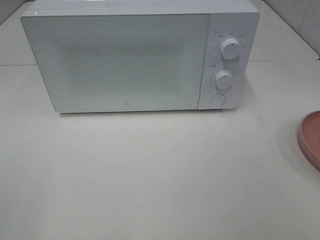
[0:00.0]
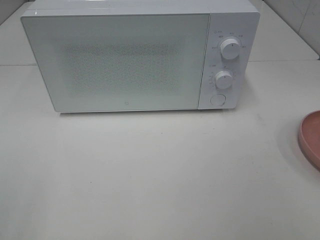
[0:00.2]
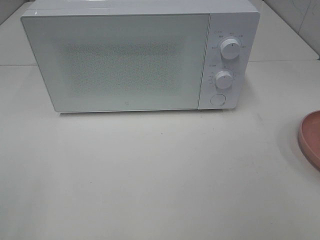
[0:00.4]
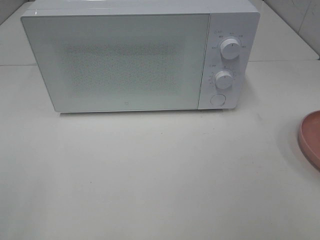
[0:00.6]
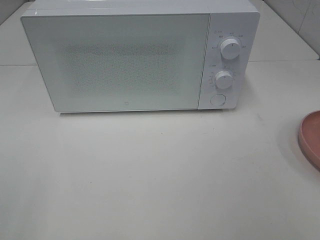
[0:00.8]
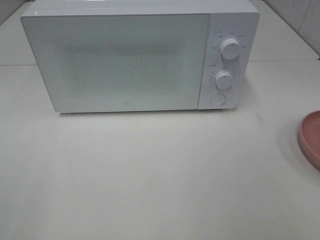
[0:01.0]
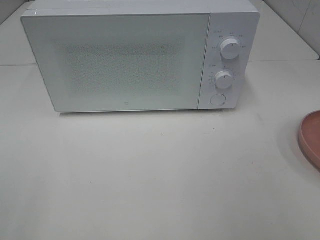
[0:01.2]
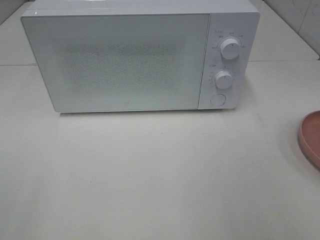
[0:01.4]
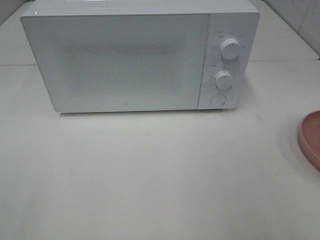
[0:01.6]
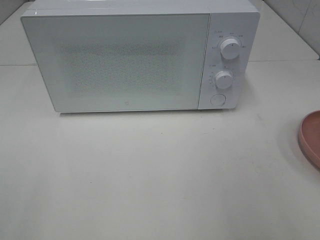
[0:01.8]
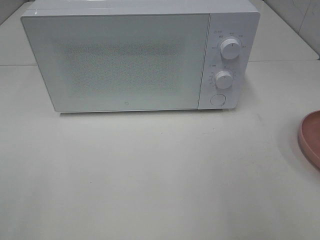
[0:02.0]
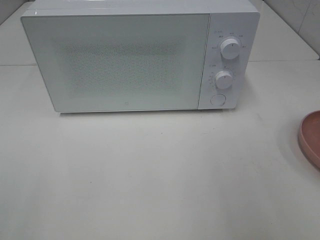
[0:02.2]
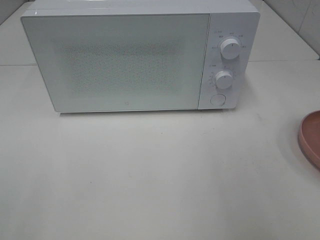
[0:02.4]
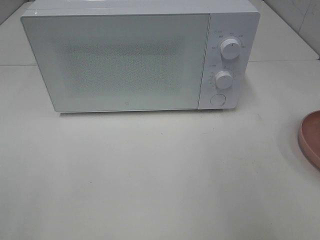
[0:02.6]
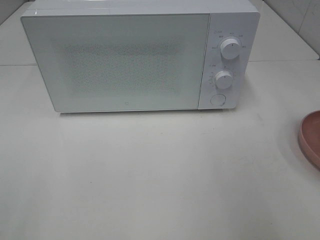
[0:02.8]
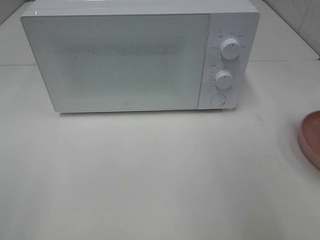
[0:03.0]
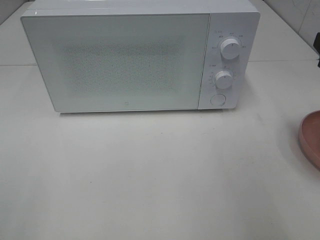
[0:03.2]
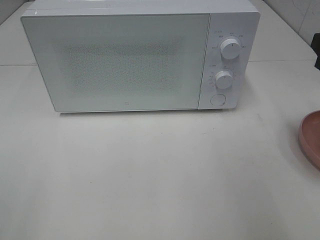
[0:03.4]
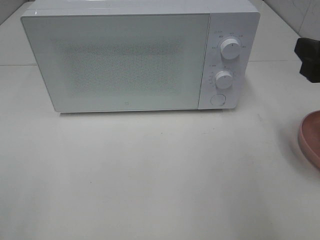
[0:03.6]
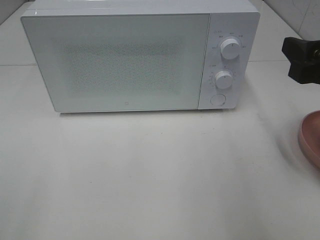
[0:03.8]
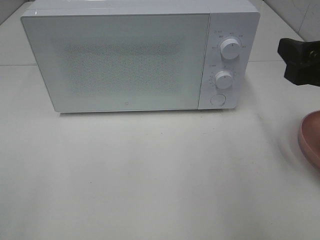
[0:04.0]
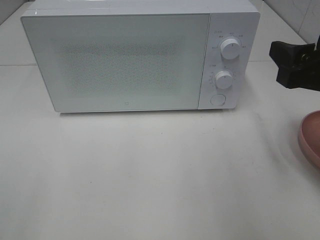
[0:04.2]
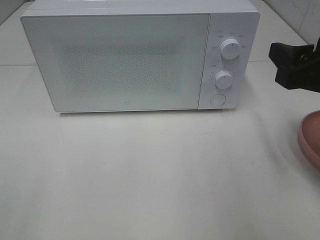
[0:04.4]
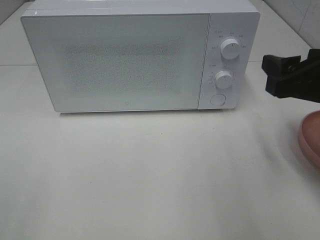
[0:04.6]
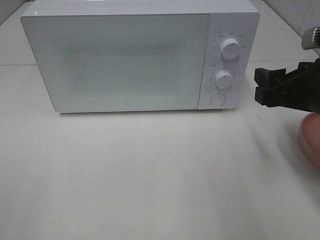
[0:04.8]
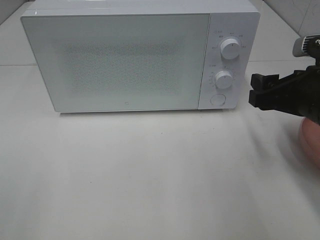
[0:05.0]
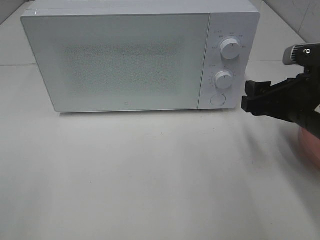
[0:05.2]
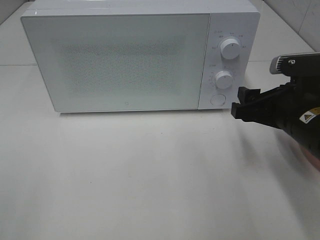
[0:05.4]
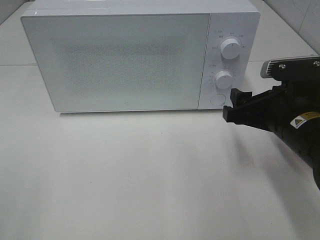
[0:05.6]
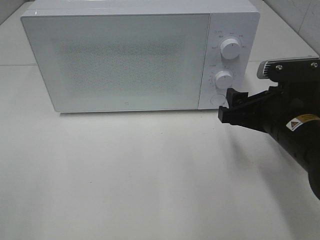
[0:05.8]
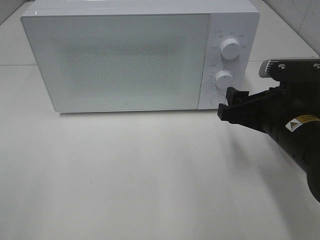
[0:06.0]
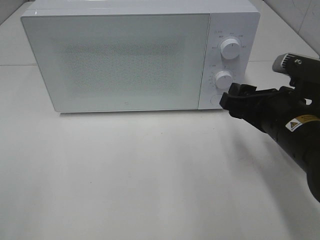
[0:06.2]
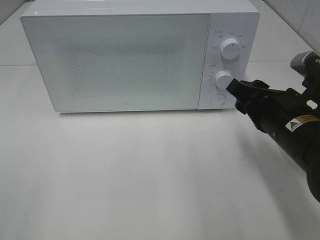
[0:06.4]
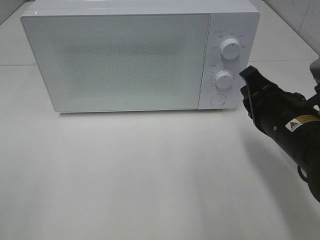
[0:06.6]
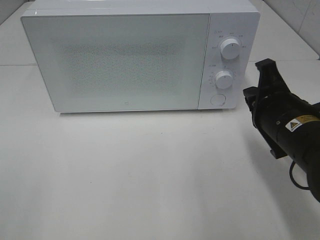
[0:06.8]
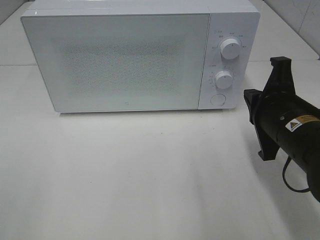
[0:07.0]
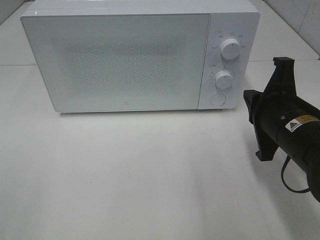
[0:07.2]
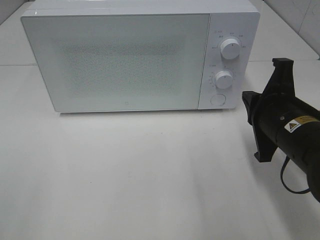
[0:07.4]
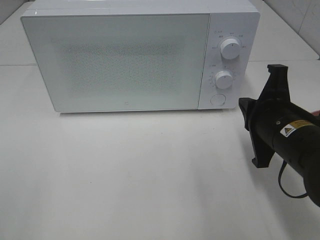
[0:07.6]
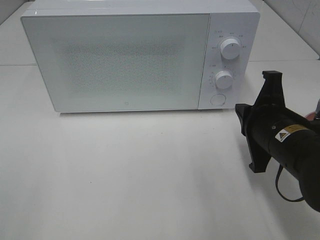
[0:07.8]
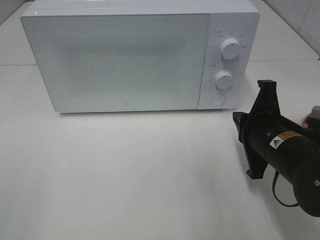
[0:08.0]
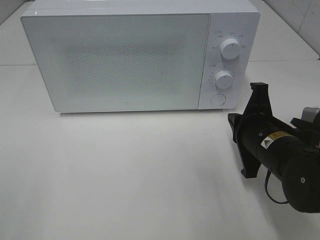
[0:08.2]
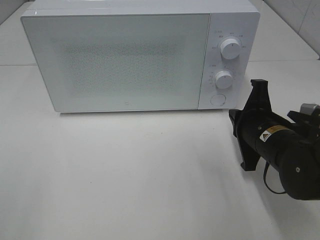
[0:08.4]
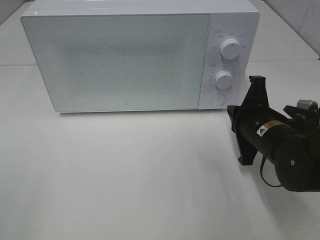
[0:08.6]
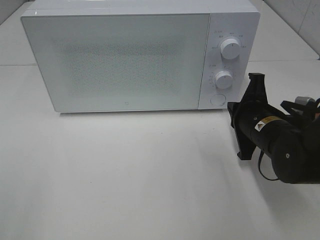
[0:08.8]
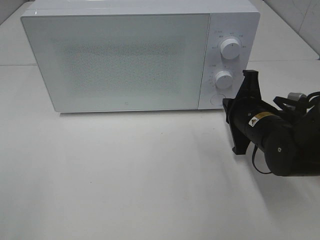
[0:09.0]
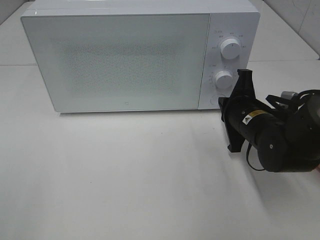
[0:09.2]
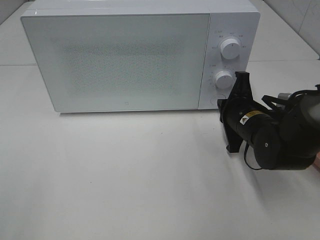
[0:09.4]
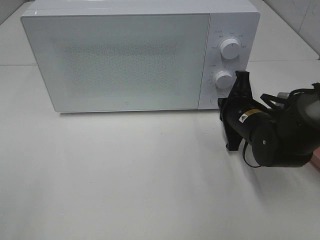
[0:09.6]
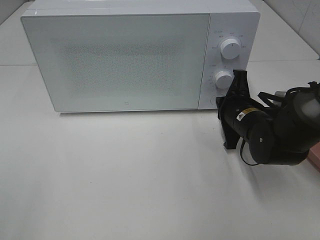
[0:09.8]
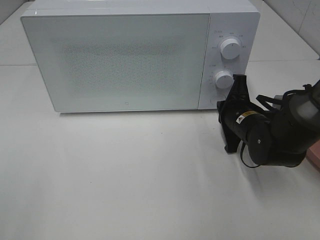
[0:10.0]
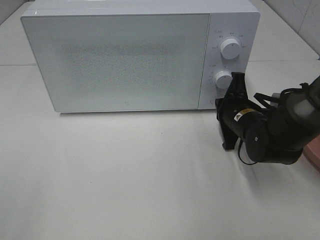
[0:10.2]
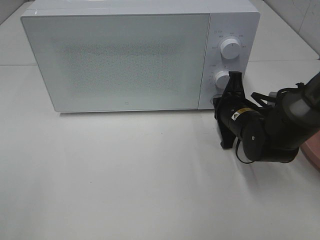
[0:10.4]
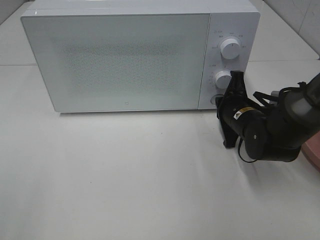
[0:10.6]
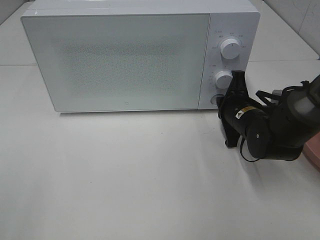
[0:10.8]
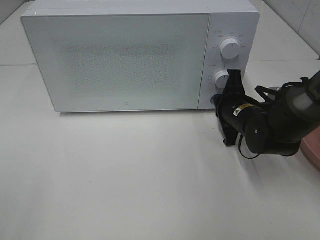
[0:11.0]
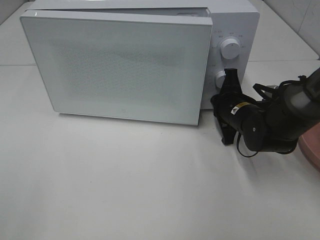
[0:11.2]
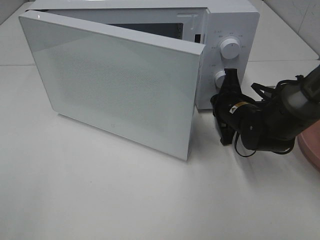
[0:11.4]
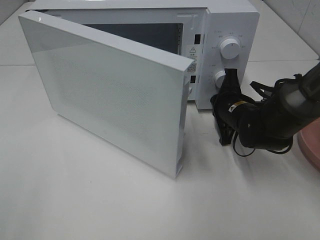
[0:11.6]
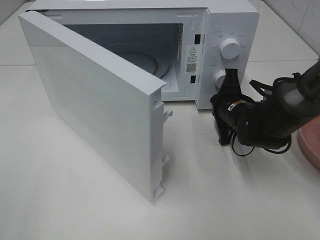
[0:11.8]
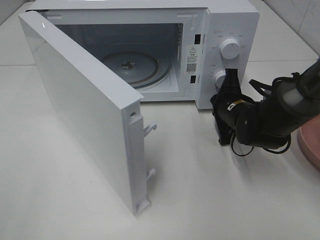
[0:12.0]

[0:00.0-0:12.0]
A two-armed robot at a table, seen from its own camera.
Task of the whole recording: Heat the burger.
0:03.0 to 0:04.4: The right gripper ends up roughly 5 cm from where it was.
0:04.4 to 0:06.0: The right gripper shifts some 10 cm downward and to the left.
0:06.0 to 0:07.6: The right gripper closes up.
0:07.6 to 0:09.0: The right gripper moves forward and downward, approximately 10 cm.
0:09.0 to 0:10.4: The right gripper moves approximately 5 cm.

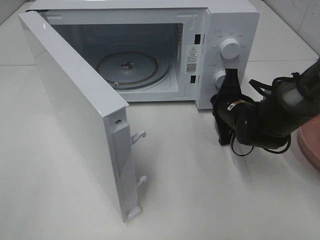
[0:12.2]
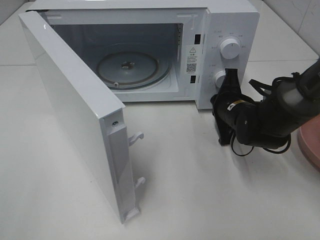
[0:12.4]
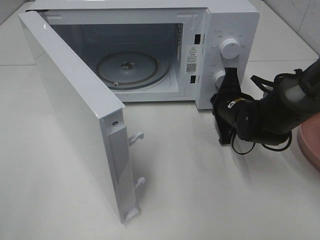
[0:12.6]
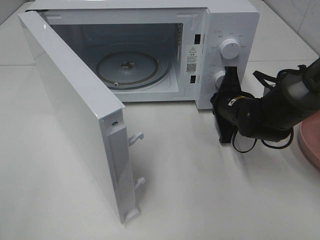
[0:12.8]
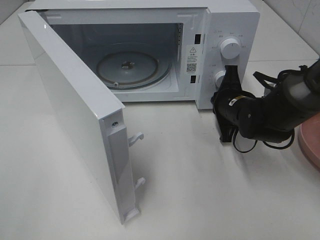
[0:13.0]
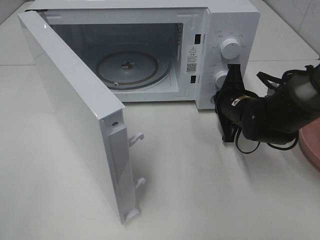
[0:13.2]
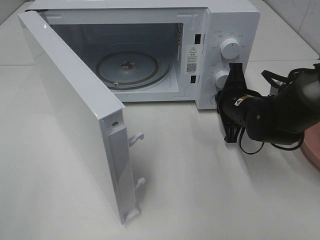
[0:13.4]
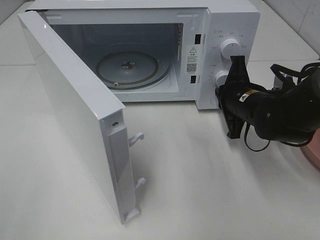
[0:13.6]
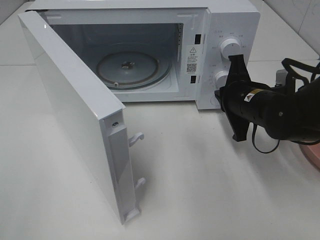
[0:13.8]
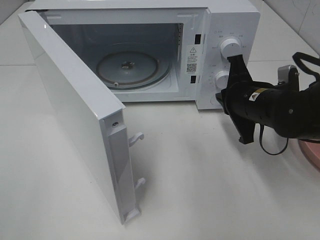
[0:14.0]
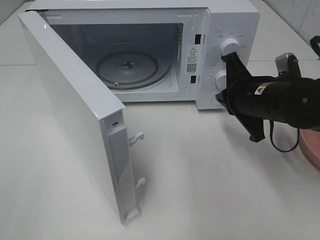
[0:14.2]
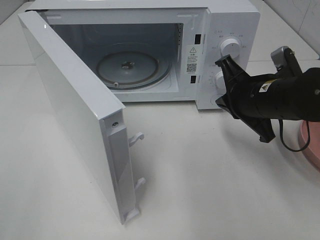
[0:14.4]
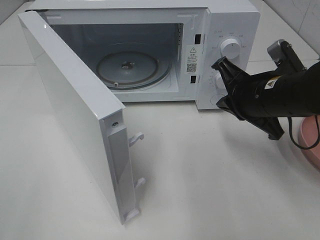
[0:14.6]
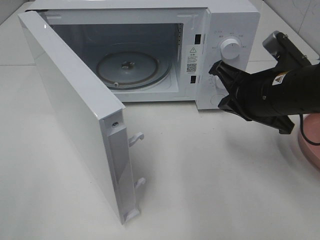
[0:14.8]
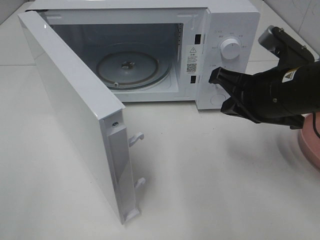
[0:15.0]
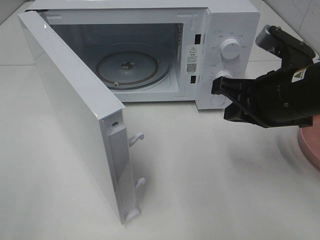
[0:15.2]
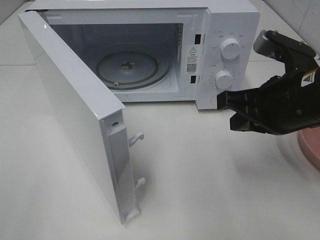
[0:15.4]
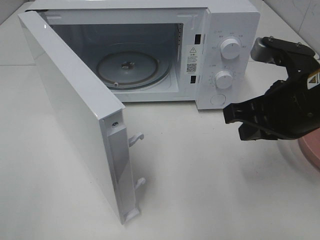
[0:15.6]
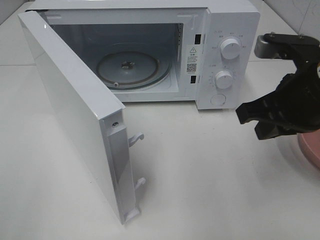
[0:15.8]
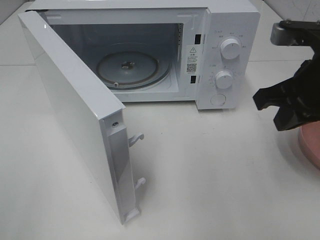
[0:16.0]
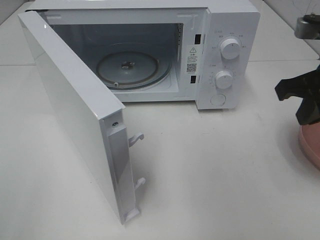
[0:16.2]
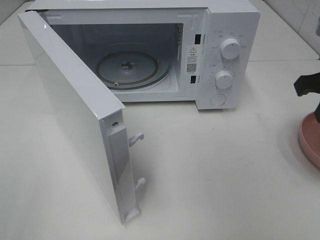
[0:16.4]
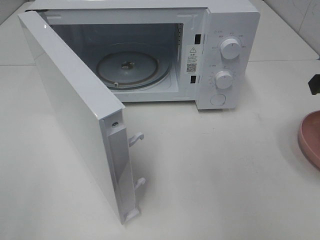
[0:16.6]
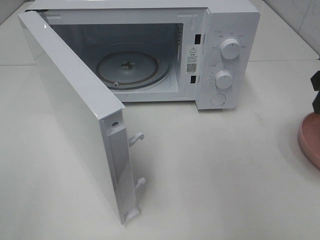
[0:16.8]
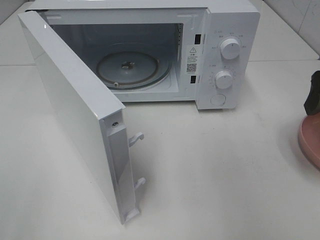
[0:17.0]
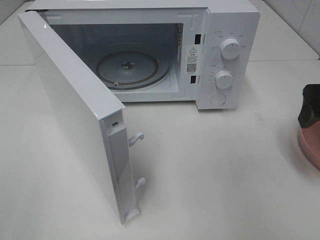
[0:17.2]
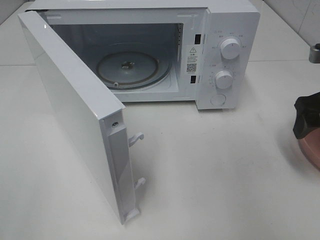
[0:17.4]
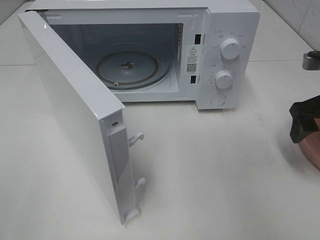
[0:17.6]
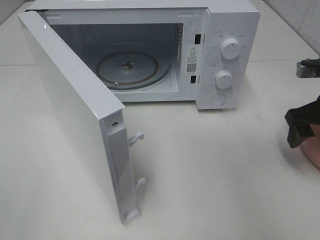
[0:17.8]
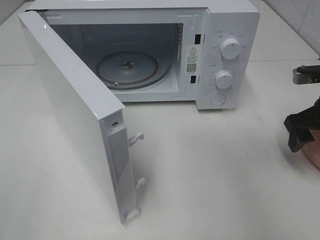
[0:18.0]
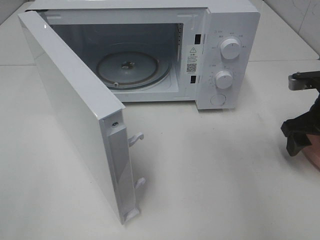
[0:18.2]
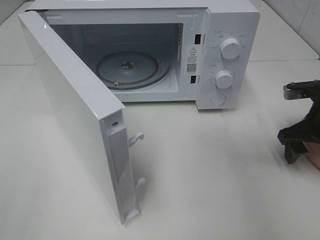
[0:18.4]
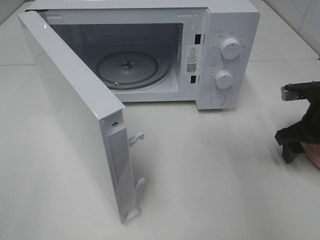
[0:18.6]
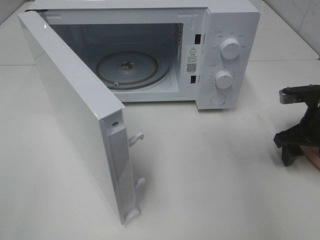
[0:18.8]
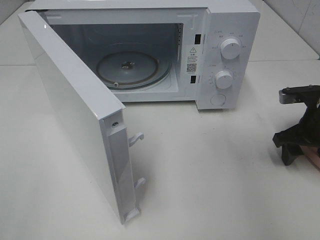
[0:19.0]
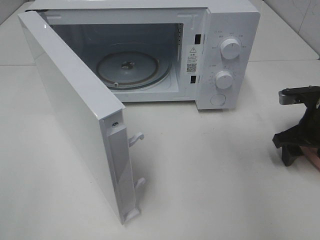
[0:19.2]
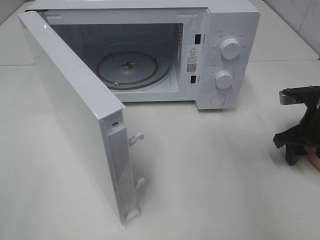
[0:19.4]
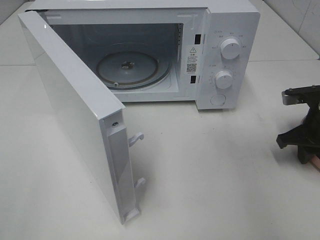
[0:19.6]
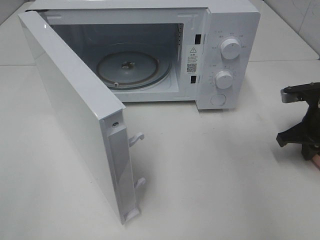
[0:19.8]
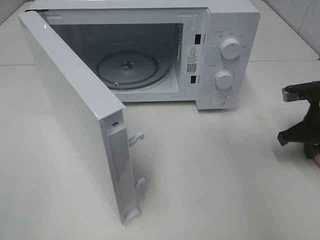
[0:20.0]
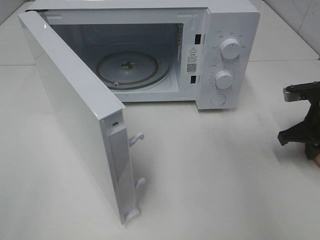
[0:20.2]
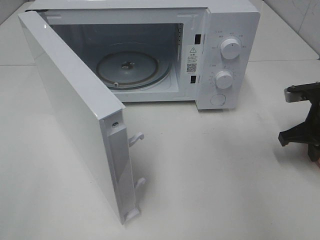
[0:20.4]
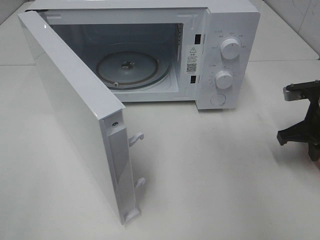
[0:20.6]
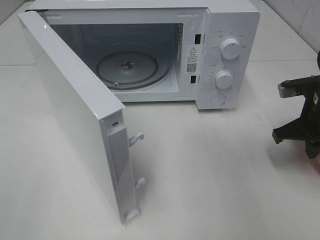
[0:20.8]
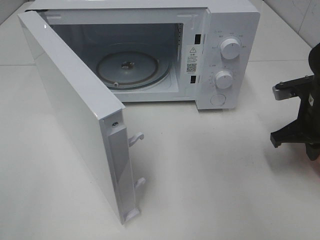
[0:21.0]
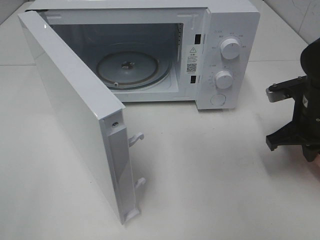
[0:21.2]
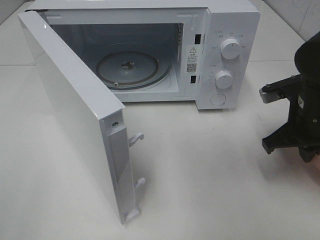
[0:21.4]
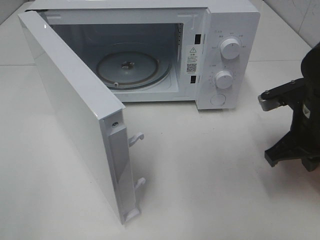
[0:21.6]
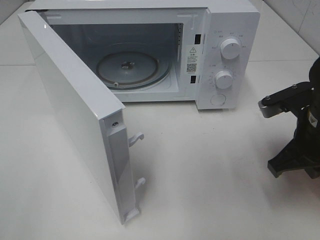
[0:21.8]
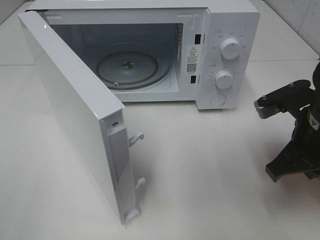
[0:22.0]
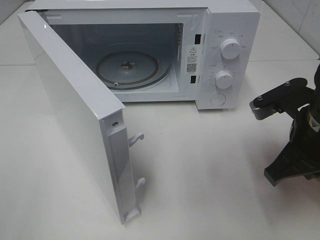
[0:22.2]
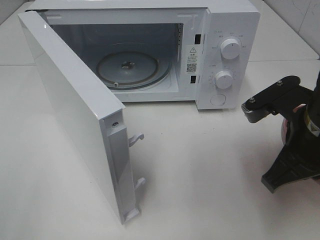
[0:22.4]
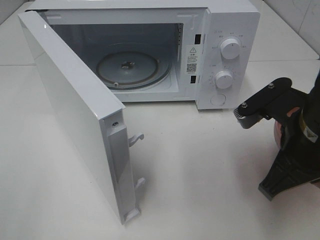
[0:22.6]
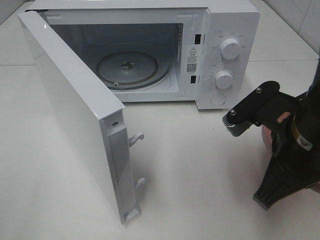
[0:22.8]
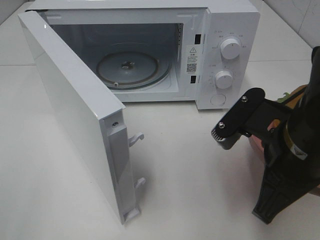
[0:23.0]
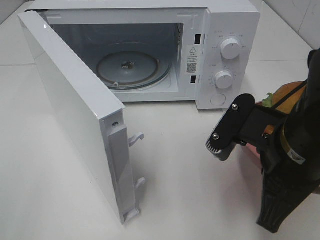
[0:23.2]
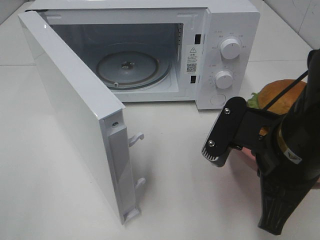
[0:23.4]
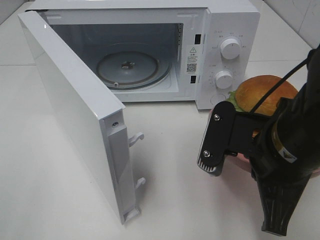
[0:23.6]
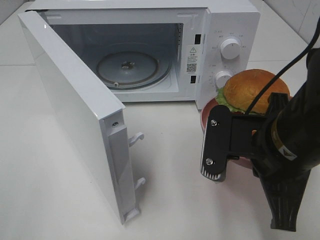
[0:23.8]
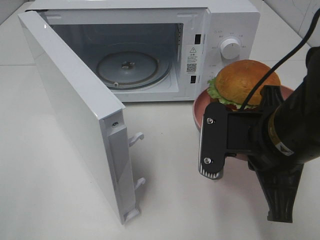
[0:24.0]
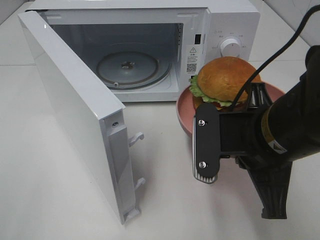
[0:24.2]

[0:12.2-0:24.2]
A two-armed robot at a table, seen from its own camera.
Task of the whole recording: Heat the burger.
Step, 0:13.6 to 0:19.8: Right hand: grab the plate with the hamburger.
0:12.2 to 0:13.8: The right gripper heads upward, covering about 5 cm.
0:13.8 to 0:15.2: The right gripper shifts some 10 cm upward and backward.
0:15.2 to 0:16.6: The right gripper is displaced to the right by some 10 cm.
0:16.6 to 0:18.2: The right gripper travels downward and forward by roughly 10 cm, and opens up.
0:18.2 to 0:19.8: The right gripper closes.
0:19.8 to 0:21.2: The right gripper is displaced to the left by about 5 cm.
0:21.2 to 0:22.6: The right gripper goes about 15 cm backward, to the left and upward.
0:22.6 to 0:24.2: The right gripper is displaced to the left by roughly 5 cm.
